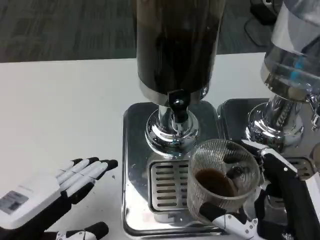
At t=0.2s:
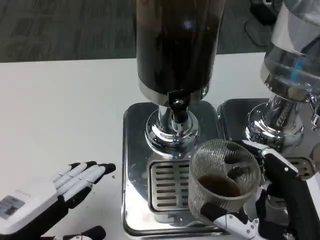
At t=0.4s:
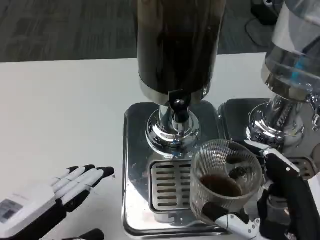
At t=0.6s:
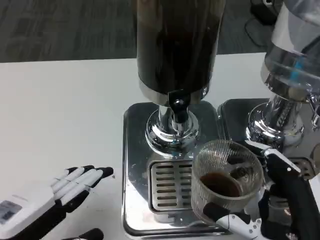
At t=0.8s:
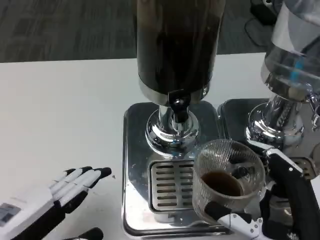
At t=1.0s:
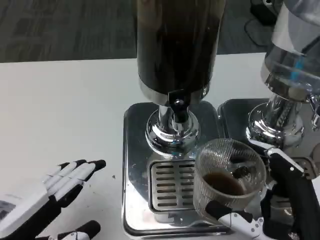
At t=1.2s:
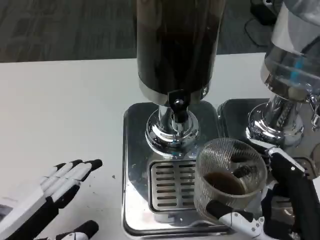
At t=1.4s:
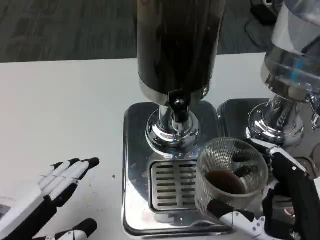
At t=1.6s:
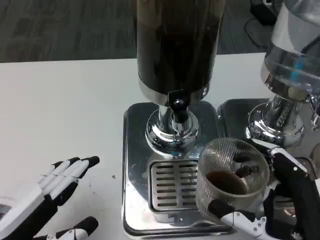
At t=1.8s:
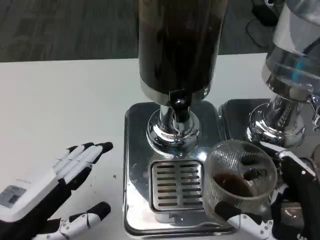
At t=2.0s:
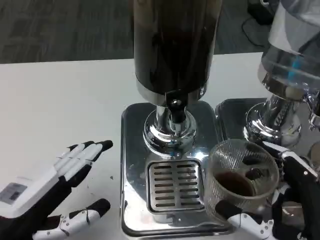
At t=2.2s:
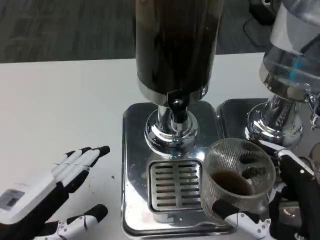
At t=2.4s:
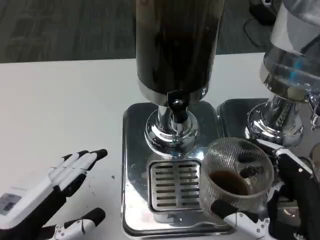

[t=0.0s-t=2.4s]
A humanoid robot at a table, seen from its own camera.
Task of the whole recording: Grasp the cup under the faucet to collect the drink, then remove the cup.
t=0.0s to t=2.4s: The hands move only a little.

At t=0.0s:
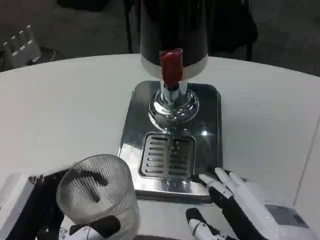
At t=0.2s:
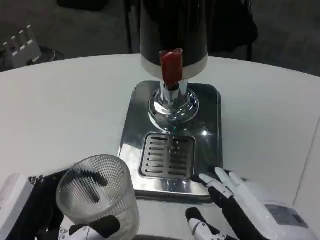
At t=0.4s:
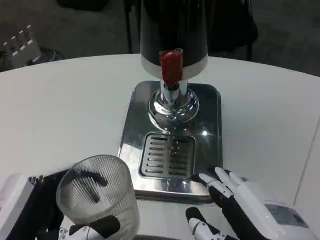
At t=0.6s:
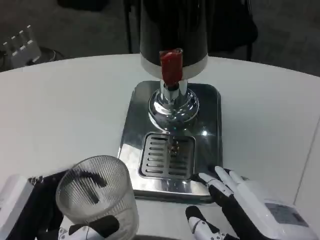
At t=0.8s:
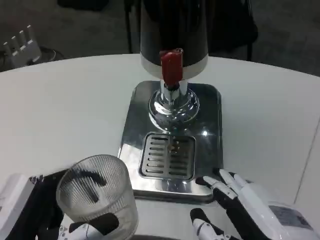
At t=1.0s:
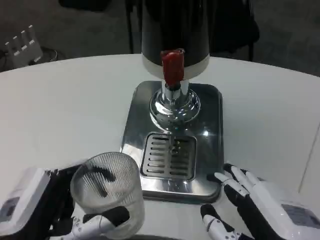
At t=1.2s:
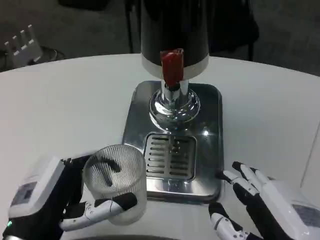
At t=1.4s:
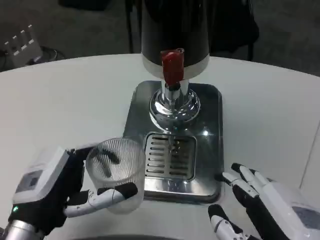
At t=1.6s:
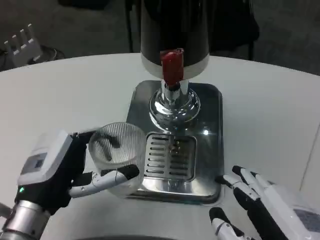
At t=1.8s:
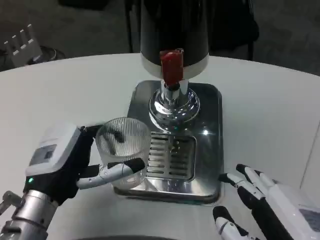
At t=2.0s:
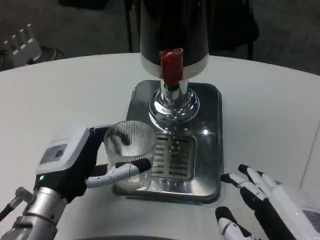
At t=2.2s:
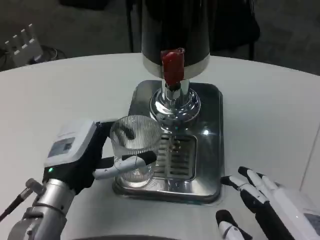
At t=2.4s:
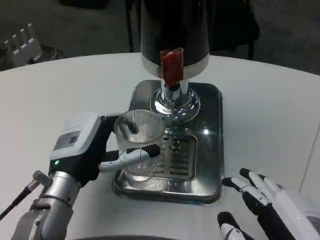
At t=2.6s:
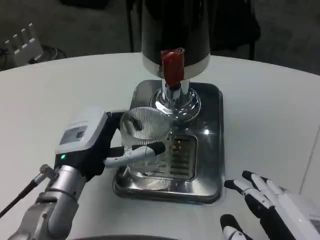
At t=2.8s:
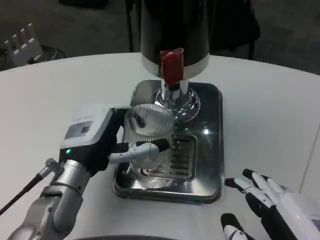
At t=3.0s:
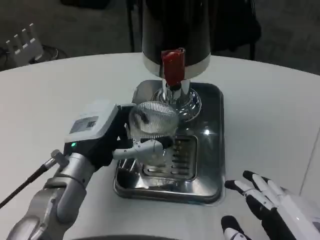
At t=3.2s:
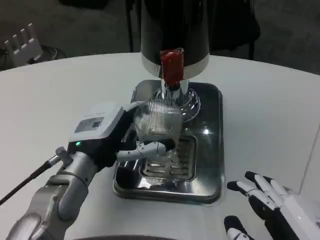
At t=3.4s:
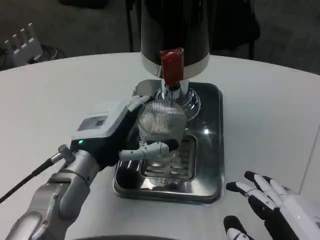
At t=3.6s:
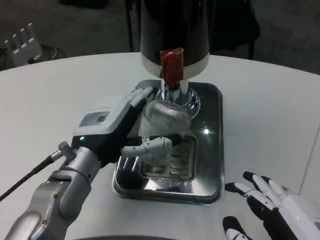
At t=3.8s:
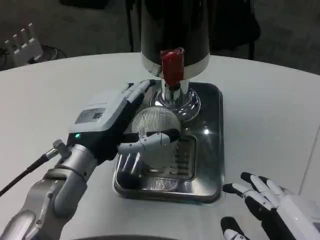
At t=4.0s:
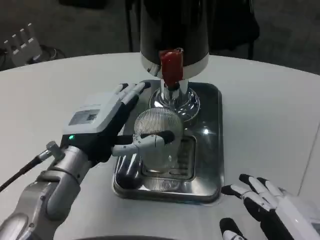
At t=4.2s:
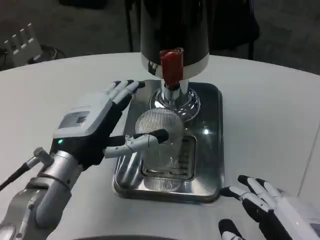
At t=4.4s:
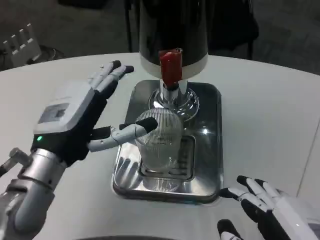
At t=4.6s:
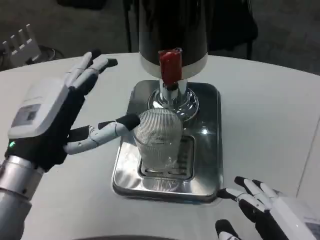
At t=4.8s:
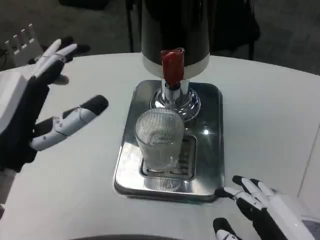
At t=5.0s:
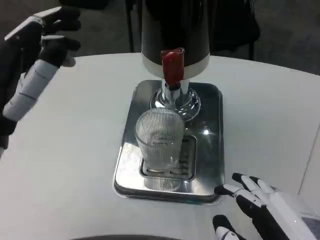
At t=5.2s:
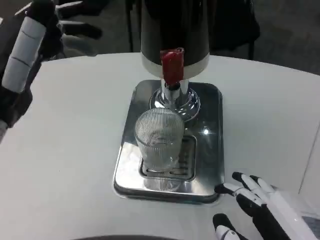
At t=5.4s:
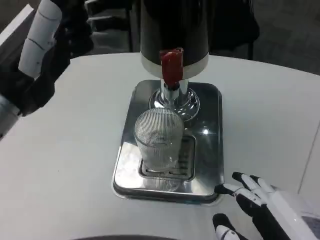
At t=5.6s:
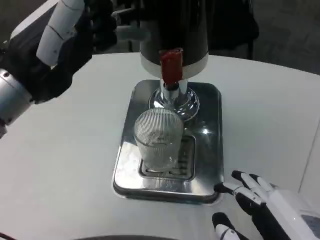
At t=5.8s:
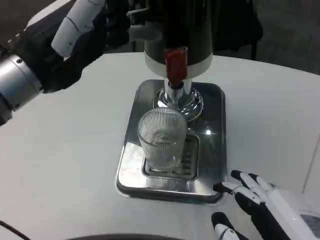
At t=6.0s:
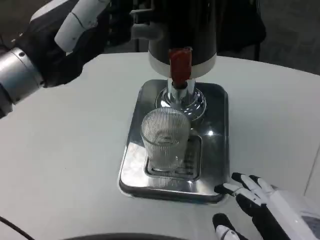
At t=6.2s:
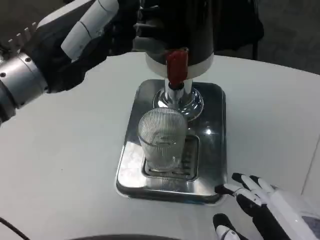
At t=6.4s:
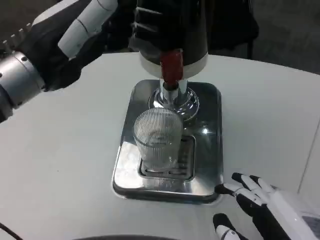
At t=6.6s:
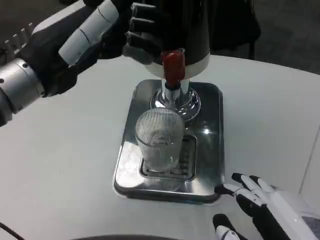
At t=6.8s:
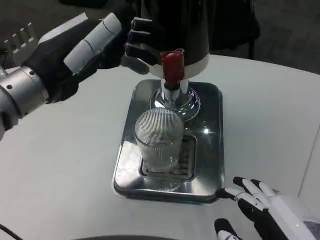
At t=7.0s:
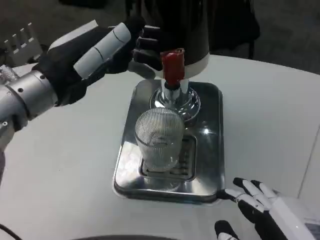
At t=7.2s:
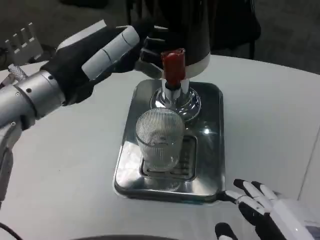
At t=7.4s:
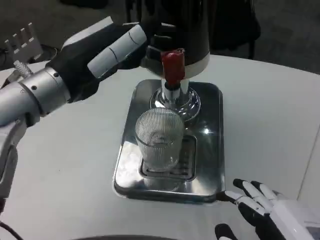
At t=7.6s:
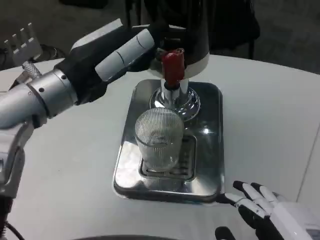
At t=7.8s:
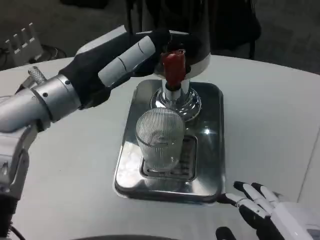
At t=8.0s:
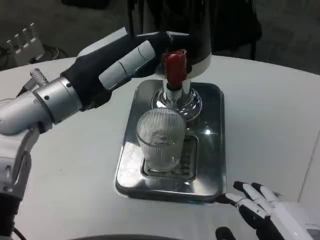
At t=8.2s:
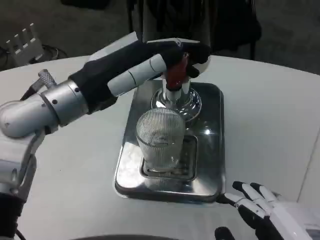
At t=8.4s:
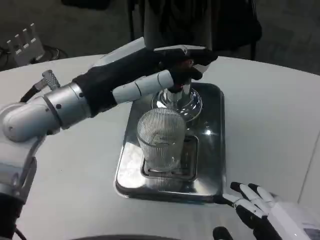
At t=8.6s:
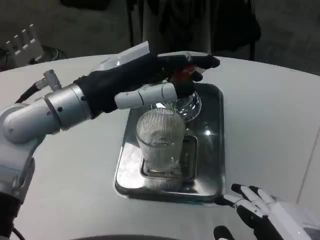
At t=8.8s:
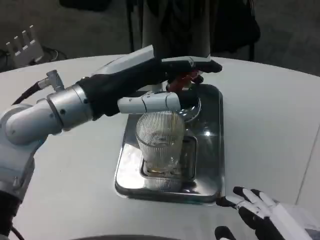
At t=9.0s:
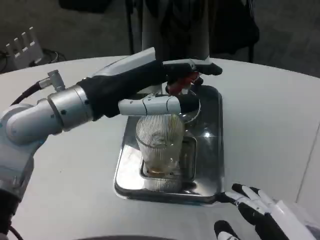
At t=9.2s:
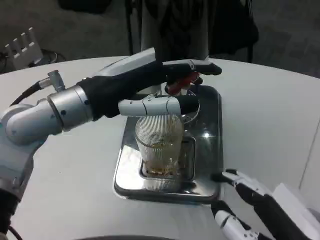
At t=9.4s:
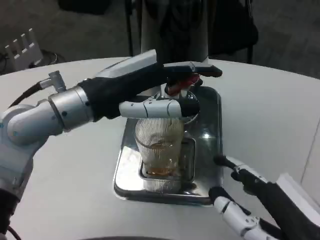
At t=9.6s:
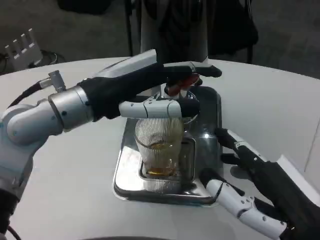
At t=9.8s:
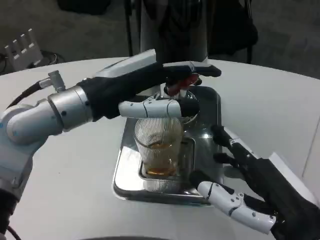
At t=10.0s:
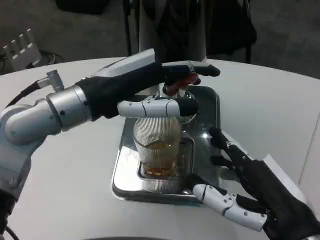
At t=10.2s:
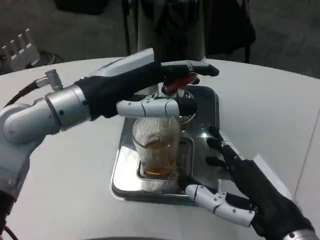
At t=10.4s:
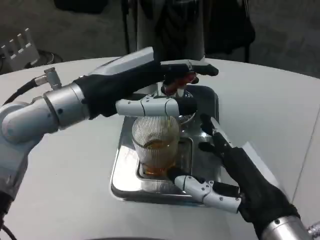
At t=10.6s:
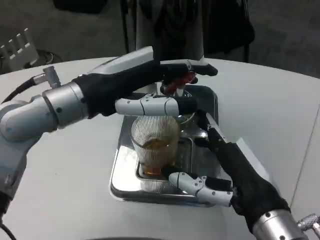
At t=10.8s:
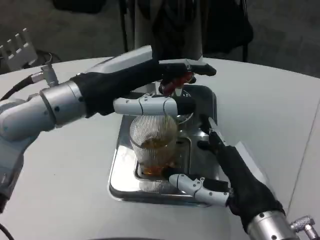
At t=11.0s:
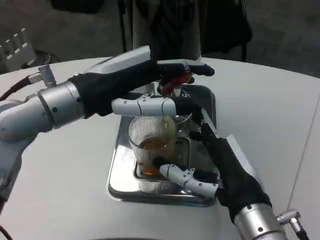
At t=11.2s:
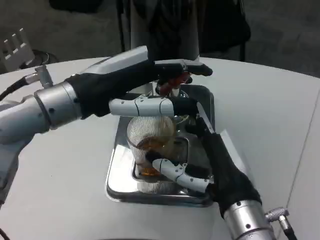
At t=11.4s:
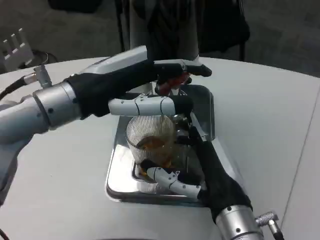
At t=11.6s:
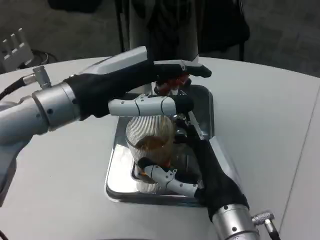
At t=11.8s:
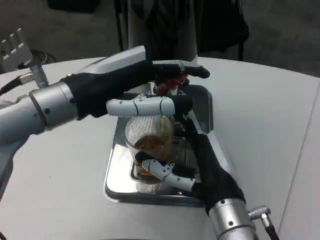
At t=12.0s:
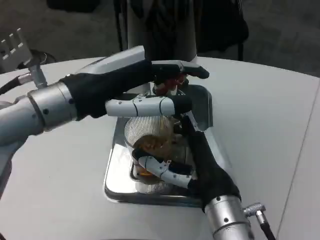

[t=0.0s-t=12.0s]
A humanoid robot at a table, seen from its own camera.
Task of the whole recording: Grasp the cup under the faucet to collect the drink, then remove the cup.
t=0.0s to t=1.6s: The left hand heads forward, covering roughly 10 cm.
t=1.6s to t=3.0s: The left hand goes some 5 cm forward.
t=3.0s to t=4.4s: The left hand moves some 5 cm.
t=4.4s to t=6.0s: The left hand shifts approximately 15 cm upward.
t=9.0s to t=10.4s: The right hand goes approximately 10 cm forward.
t=10.4s to t=12.0s: The right hand travels to the left and forward by approximately 10 cm.

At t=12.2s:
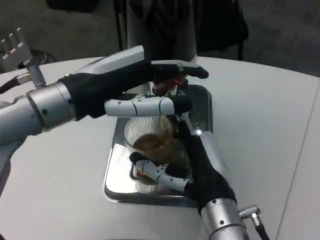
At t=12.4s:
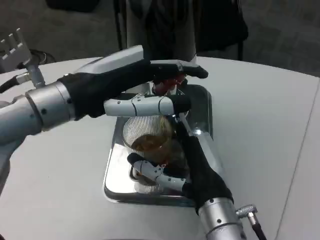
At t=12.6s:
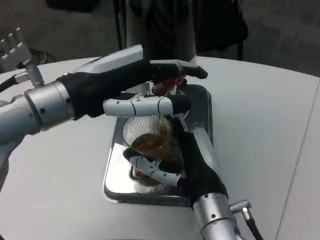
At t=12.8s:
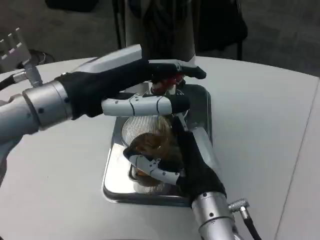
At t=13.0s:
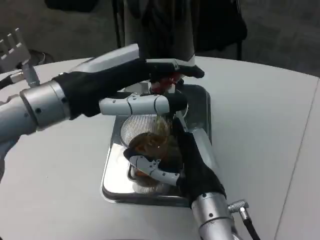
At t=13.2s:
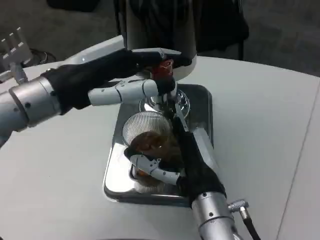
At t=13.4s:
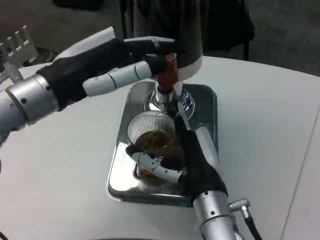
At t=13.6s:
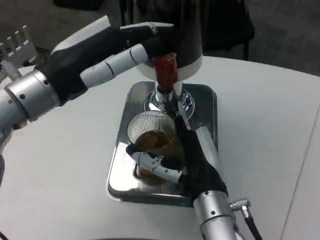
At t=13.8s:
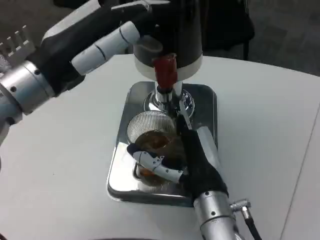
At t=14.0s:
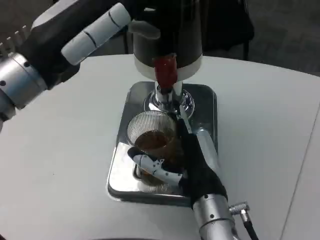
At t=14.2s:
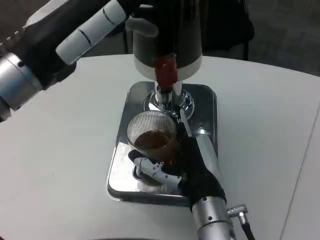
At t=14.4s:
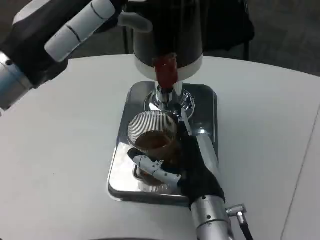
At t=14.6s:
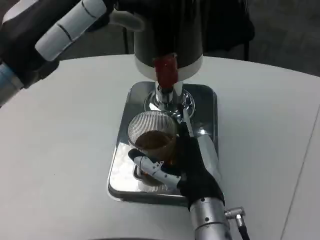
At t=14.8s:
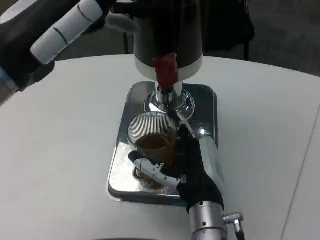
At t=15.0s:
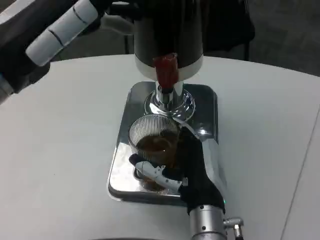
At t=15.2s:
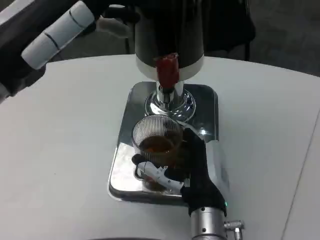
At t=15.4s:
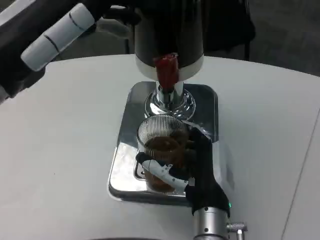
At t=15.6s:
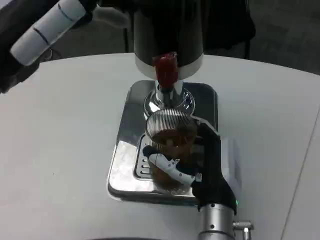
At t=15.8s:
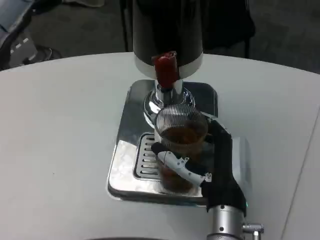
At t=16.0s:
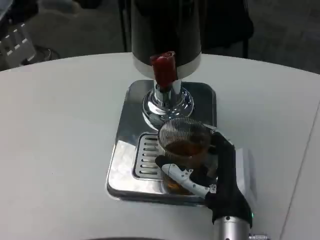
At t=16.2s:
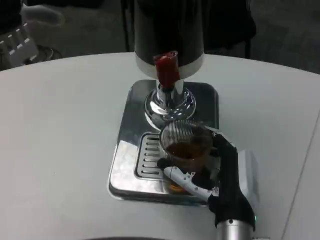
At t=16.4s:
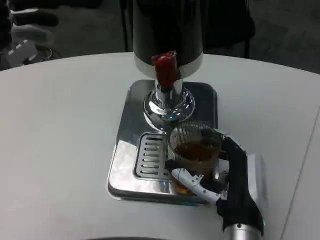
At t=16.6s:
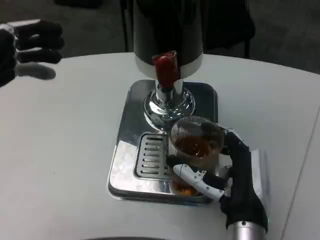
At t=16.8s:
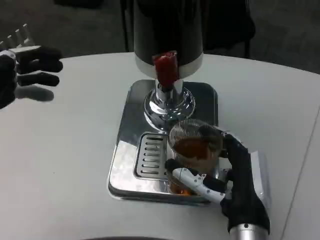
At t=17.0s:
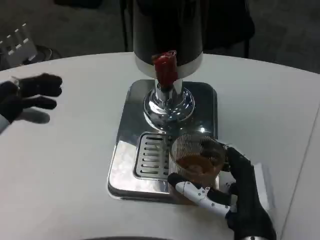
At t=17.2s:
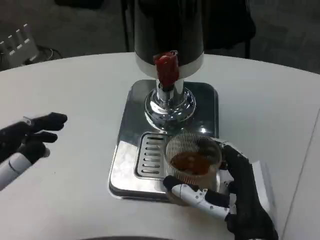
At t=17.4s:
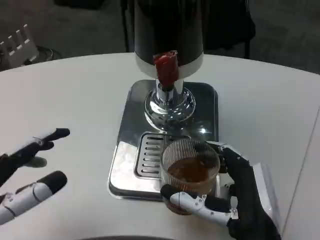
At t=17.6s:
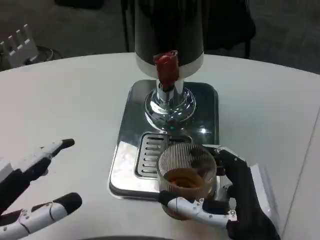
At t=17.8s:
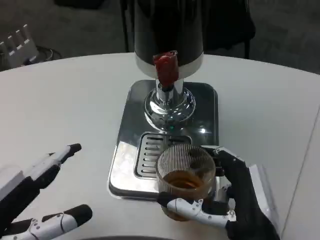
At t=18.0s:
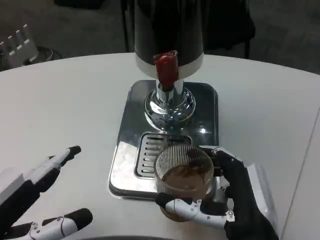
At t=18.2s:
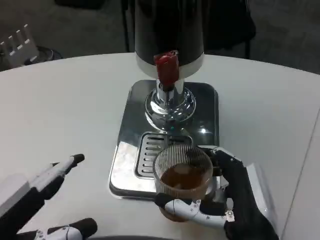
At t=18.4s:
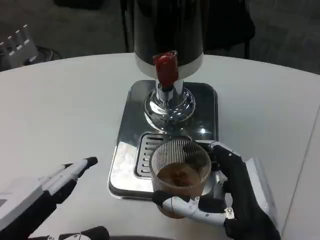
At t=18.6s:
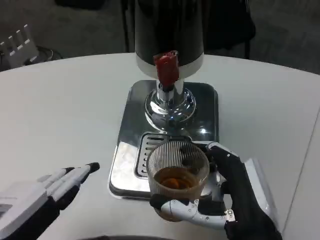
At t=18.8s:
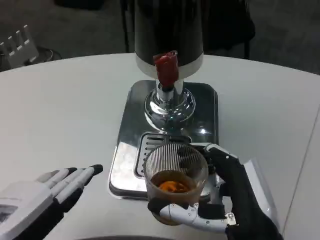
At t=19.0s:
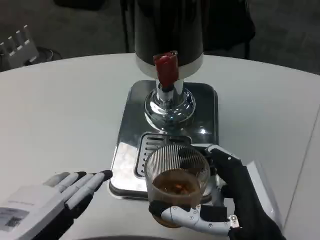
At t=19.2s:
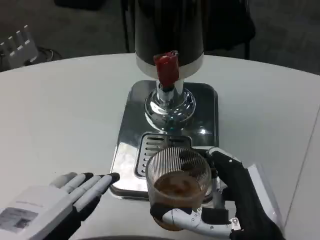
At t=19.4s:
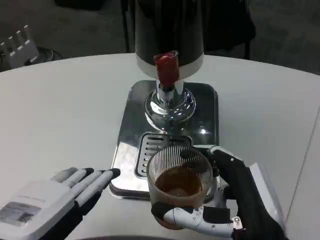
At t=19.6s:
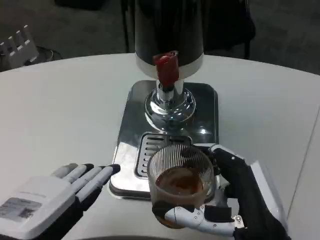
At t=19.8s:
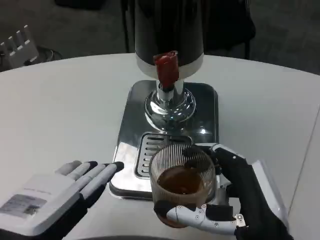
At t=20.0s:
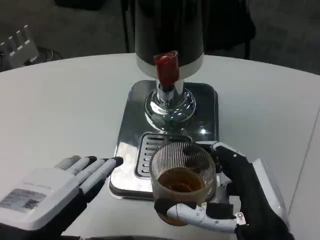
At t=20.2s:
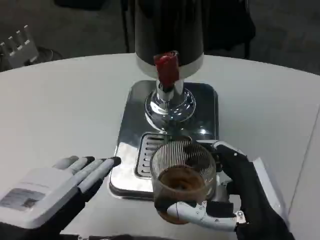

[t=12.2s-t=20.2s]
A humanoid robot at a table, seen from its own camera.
Task of the whole recording: Grasp the cup under the faucet to collect the drink, then remove the cup.
t=15.4s to t=17.0s: The left hand moves backward, downward and to the left, about 15 cm, while the right hand is displaced backward and to the right by approximately 5 cm.
t=17.0s to t=18.6s: The left hand ends up some 5 cm from where it was.
t=18.6s to t=20.2s: The hands move only a little.
